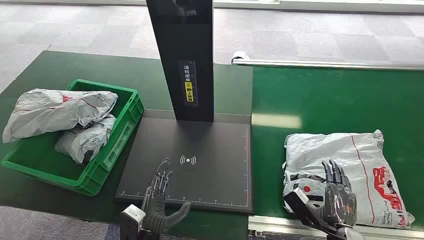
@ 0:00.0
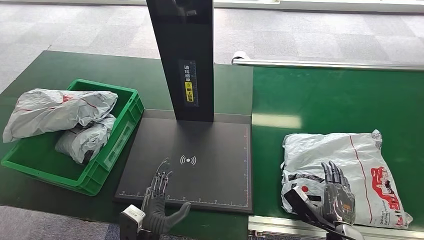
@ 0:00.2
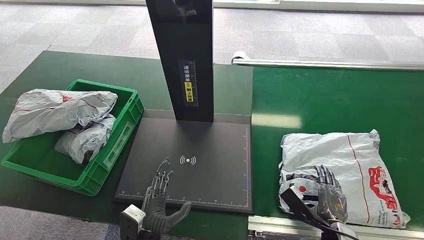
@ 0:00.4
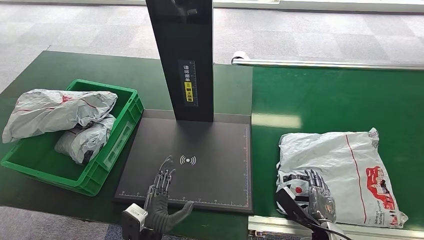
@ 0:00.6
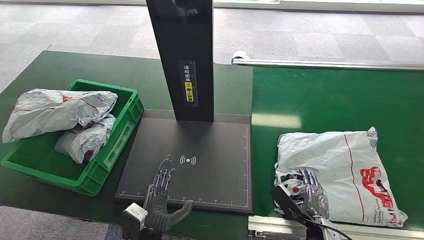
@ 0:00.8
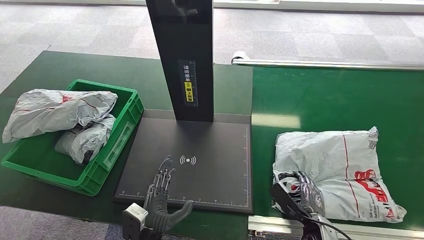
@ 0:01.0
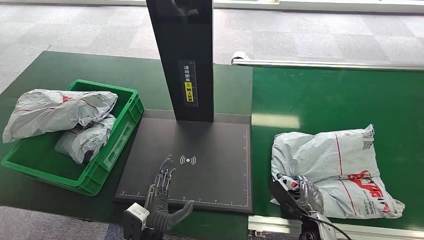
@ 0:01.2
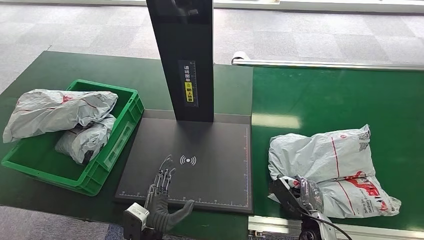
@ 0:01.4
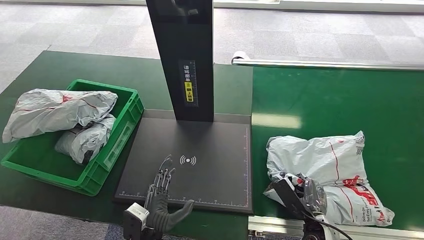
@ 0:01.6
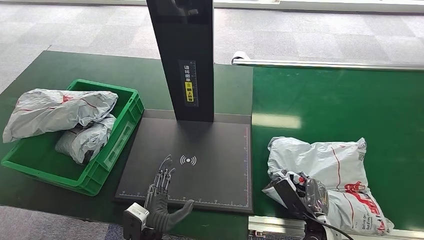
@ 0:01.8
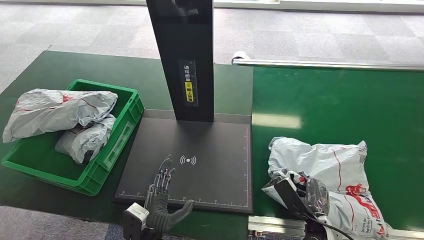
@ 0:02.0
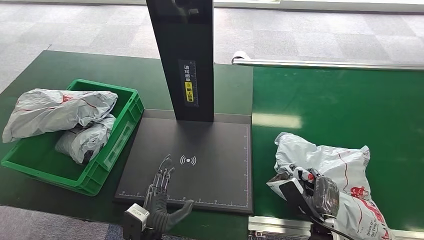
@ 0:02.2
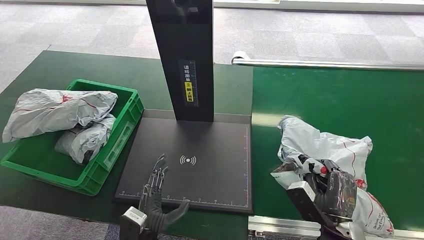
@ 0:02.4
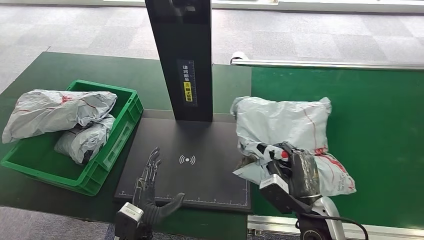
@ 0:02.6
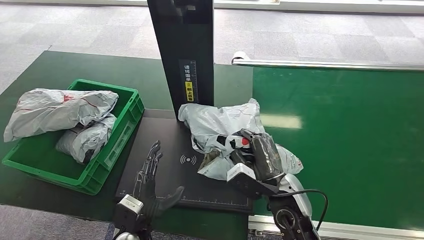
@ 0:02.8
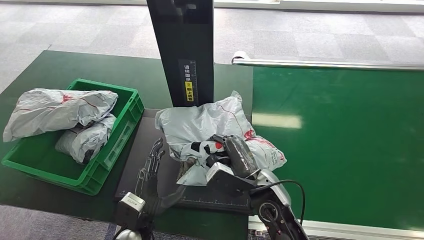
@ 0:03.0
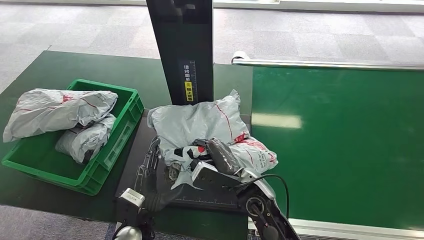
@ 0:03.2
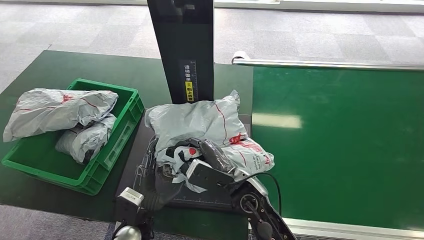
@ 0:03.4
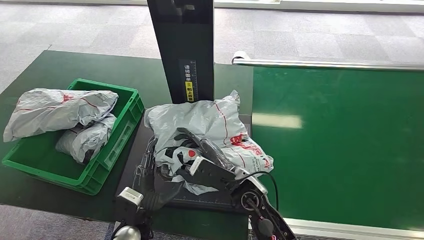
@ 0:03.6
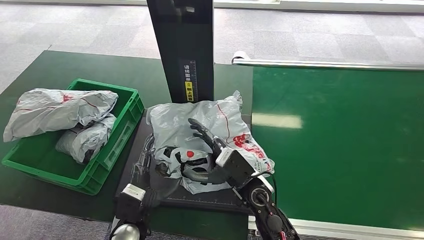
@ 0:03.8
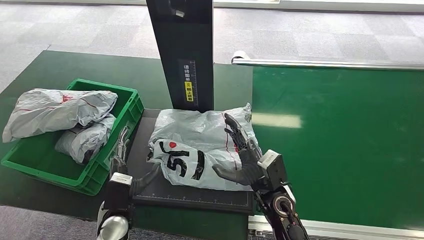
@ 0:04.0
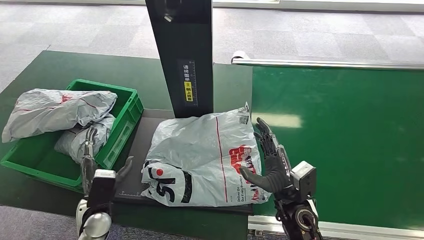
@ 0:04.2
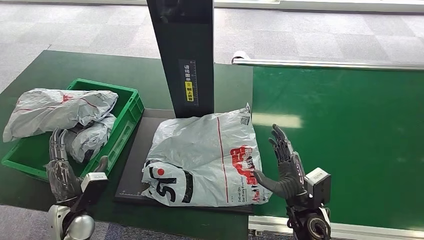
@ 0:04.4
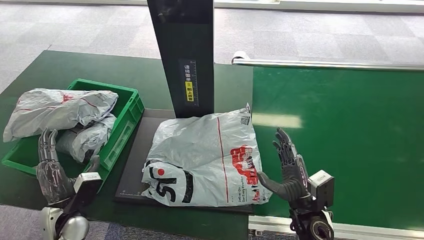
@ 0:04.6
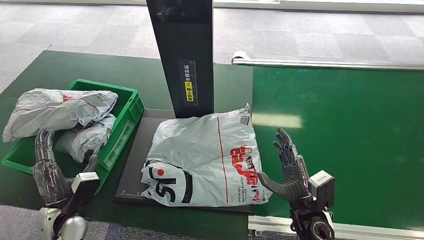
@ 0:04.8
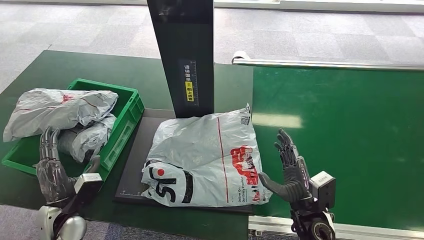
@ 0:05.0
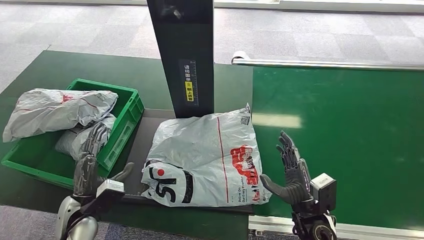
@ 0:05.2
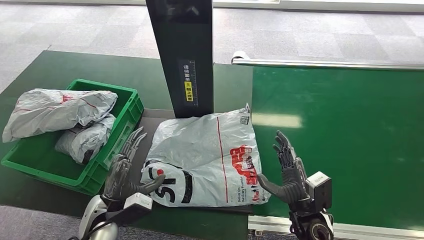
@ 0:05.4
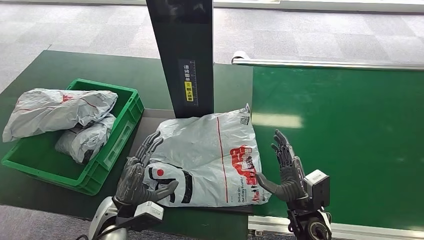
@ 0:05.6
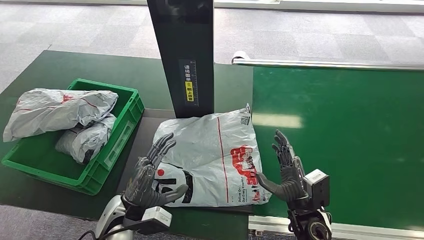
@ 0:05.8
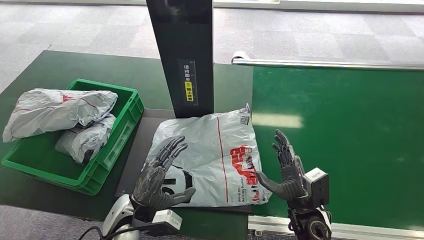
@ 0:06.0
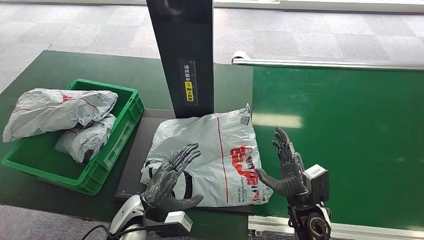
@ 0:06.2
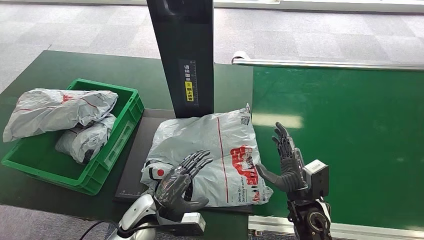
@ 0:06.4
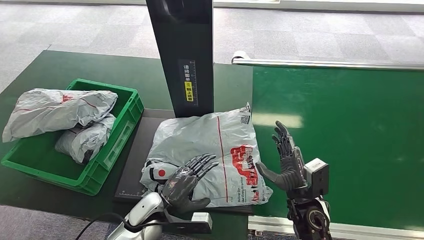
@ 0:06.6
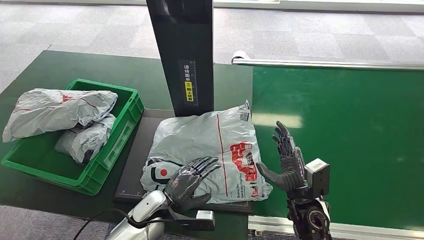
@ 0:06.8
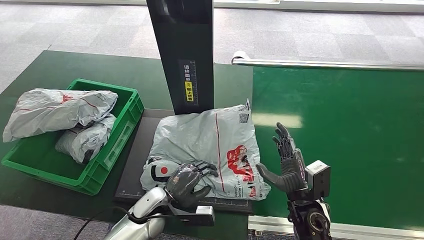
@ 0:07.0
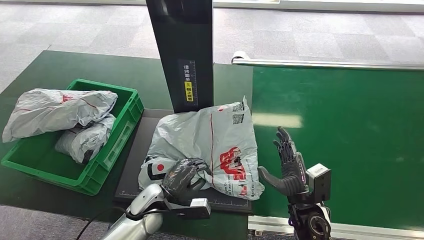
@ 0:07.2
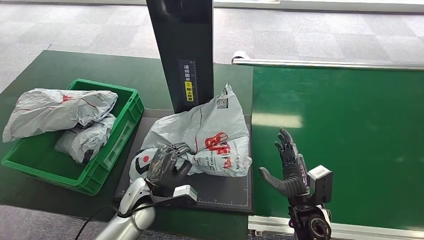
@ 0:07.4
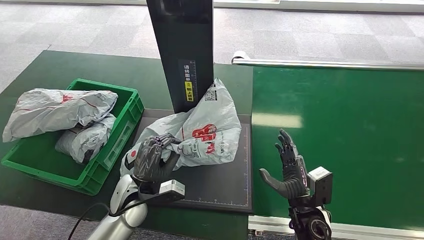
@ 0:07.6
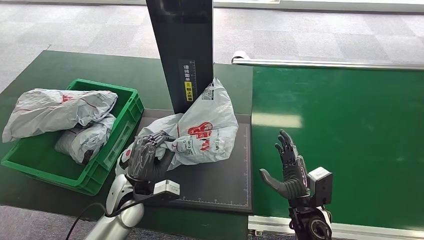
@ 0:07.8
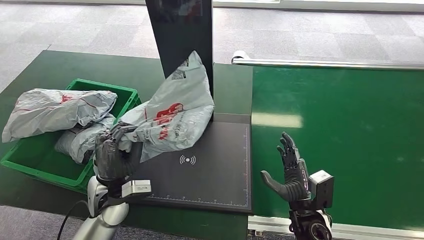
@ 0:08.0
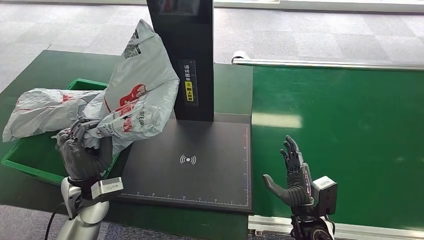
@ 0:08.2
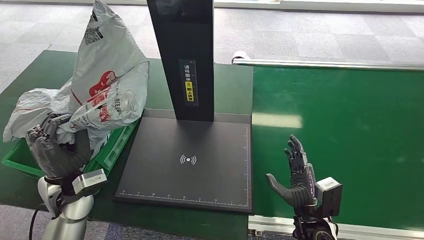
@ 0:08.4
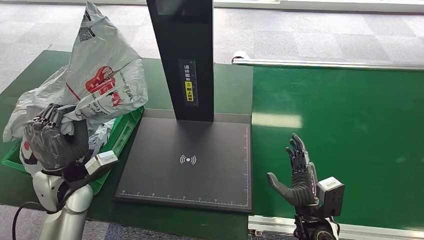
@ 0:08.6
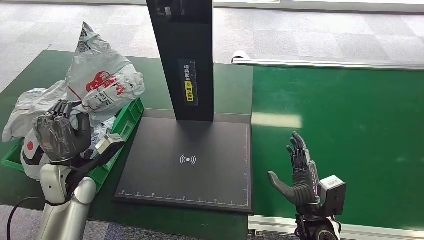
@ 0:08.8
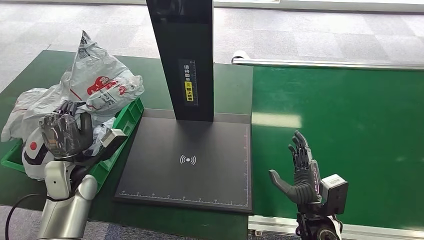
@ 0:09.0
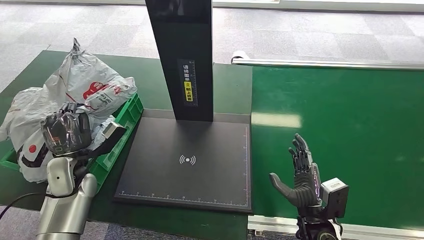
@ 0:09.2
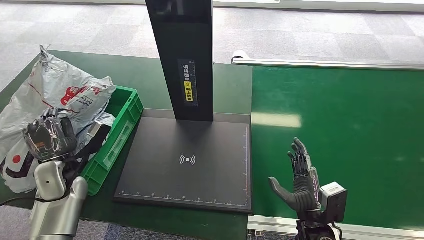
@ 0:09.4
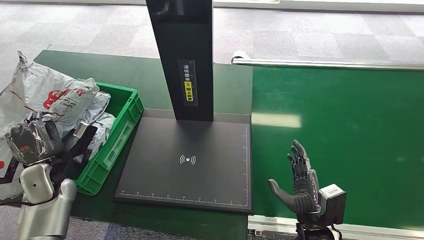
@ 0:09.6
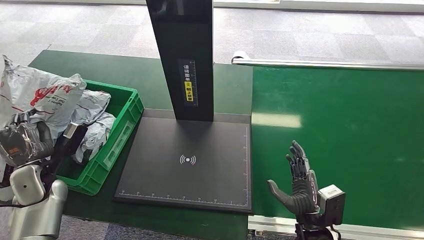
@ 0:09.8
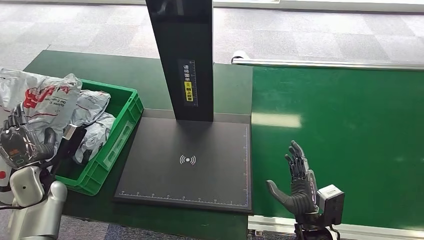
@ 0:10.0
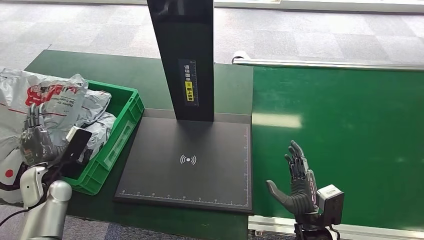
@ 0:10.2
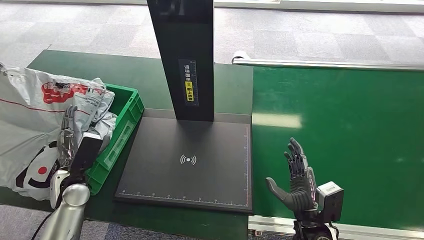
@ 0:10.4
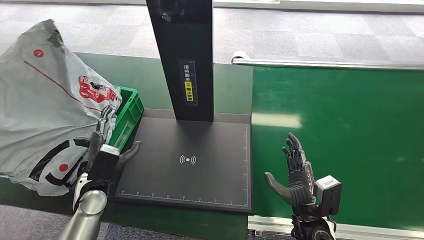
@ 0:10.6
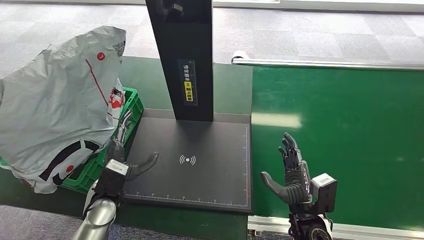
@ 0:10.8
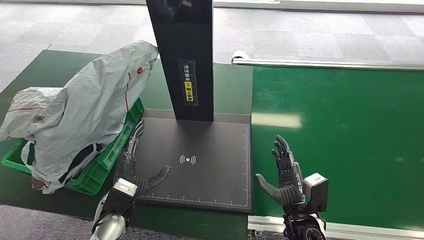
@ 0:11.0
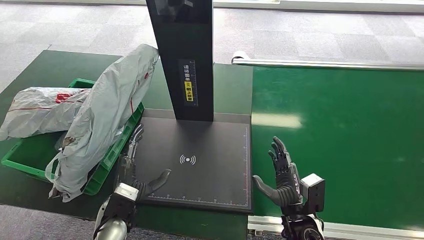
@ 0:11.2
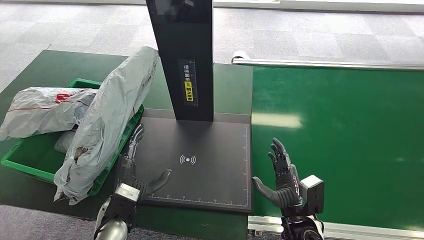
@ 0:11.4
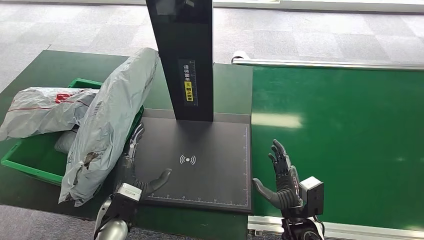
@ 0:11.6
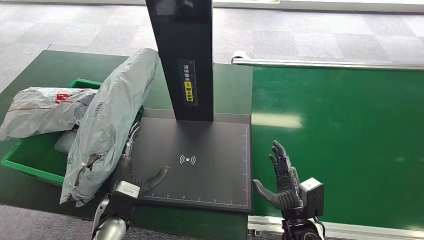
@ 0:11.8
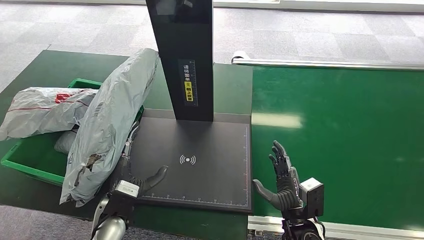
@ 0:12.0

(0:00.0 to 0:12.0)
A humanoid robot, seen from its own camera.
Task of the whole recording: Weigh the package on the weighing device and place it in the left basket.
Step, 0:00.0 - 0:02.4: Pick up the package from the conveyor belt.
Step, 0:02.6 - 0:05.2: Place the package onto the inbound machine.
Step, 0:05.4 - 0:07.8: Pick up the package from the inbound machine.
0:03.0 - 0:04.4: The right hand goes roughly 10 cm to the right and downward, while the left hand travels to the left by approximately 15 cm.
0:04.4 - 0:06.0: The left hand is displaced to the right by approximately 15 cm.
0:06.0 - 0:07.6: The left hand heads forward, covering about 5 cm.
0:09.0 - 0:10.4: The left hand is displaced downward by about 5 cm, and reaches about 10 cm to the left, then returns.

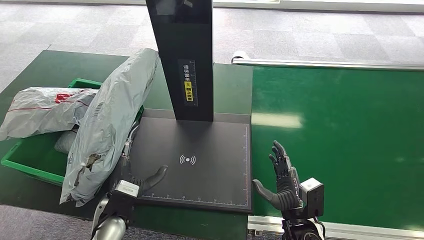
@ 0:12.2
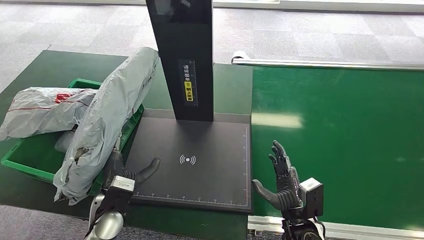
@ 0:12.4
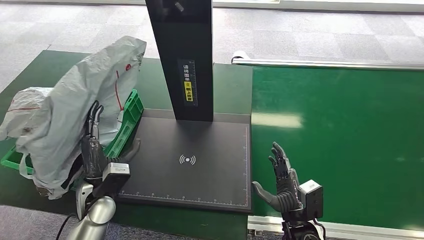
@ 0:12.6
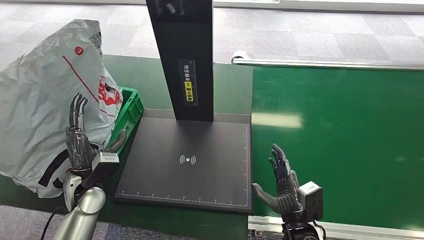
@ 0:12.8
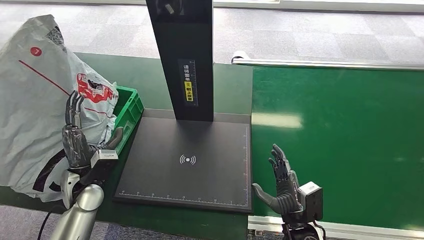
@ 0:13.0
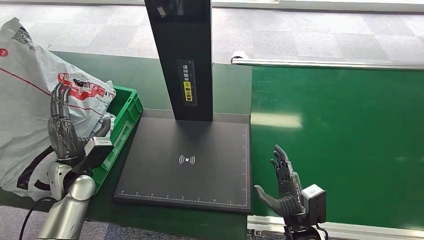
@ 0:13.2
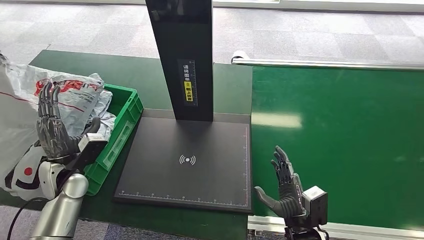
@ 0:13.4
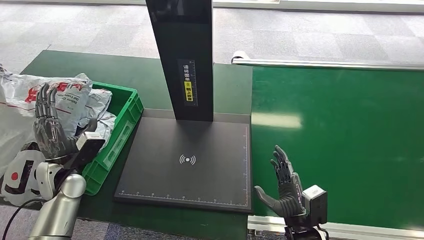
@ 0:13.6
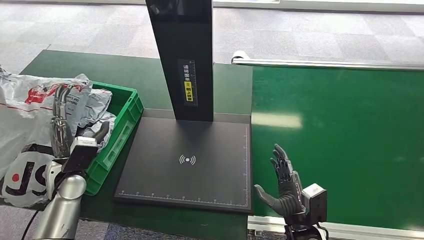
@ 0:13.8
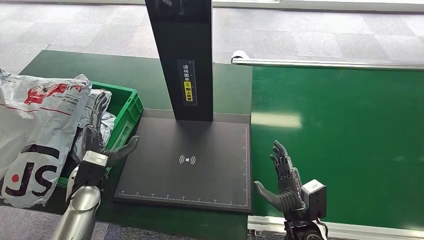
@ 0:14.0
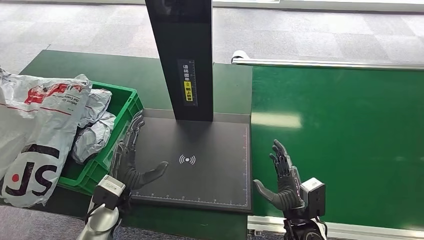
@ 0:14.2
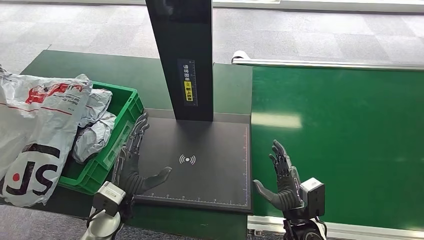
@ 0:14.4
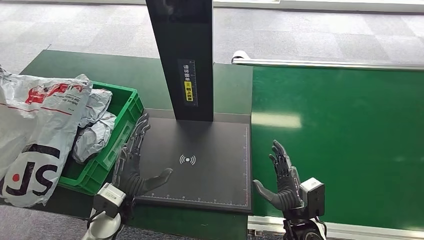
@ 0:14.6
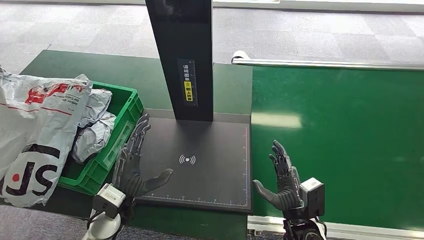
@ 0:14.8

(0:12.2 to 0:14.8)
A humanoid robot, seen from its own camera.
Task of the whole recording: Weigh the package on the weighing device and place it in the left basket.
Step, 0:12.2 - 0:14.8: Place the package into the parcel locker.
0:12.2 - 0:13.4: The left hand shifts some 15 cm to the left and forward.
0:13.4 - 0:14.8: The left hand goes some 15 cm to the right and backward.
